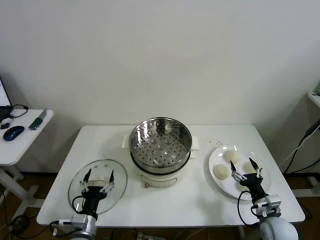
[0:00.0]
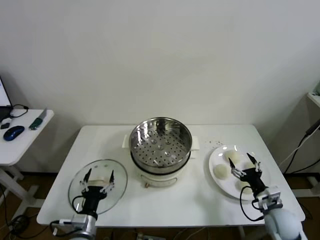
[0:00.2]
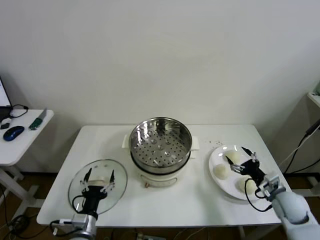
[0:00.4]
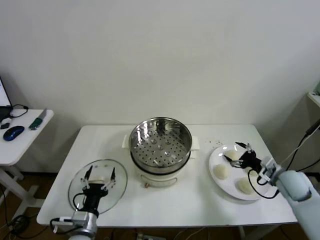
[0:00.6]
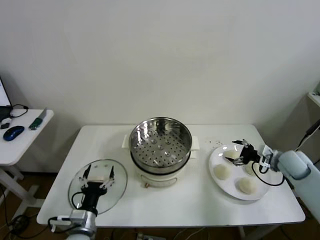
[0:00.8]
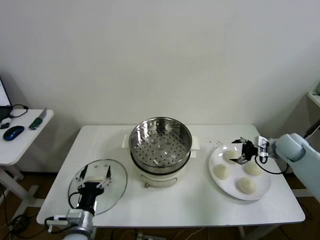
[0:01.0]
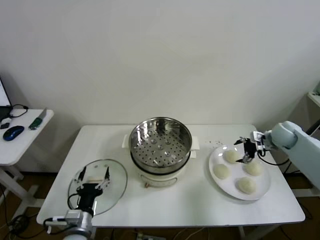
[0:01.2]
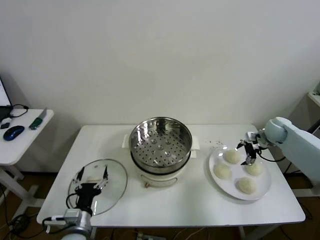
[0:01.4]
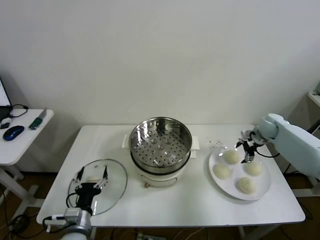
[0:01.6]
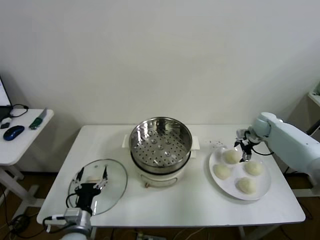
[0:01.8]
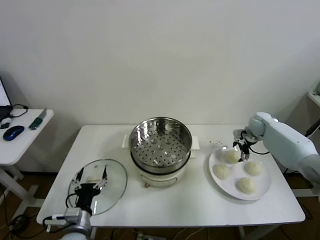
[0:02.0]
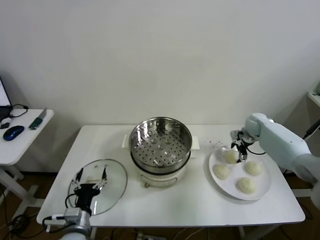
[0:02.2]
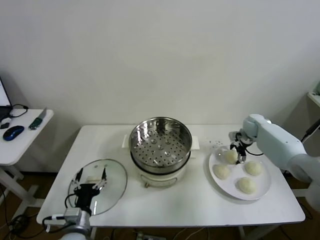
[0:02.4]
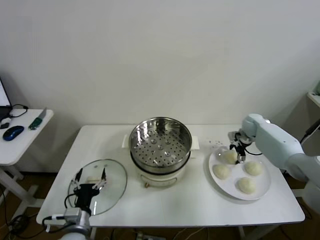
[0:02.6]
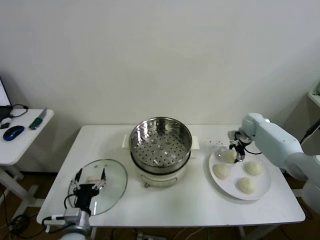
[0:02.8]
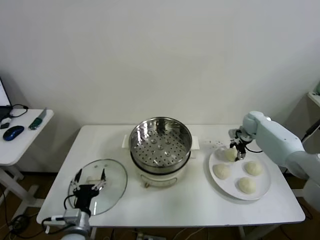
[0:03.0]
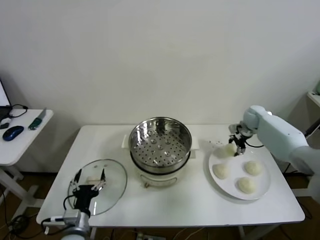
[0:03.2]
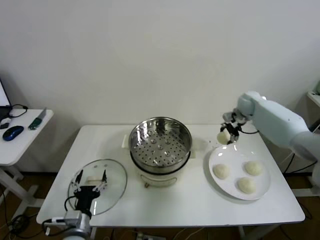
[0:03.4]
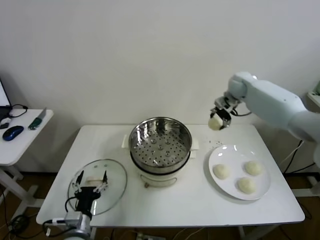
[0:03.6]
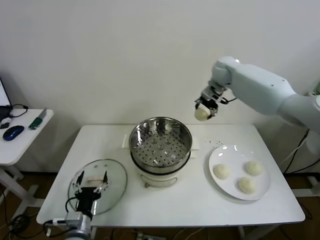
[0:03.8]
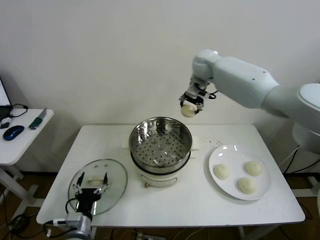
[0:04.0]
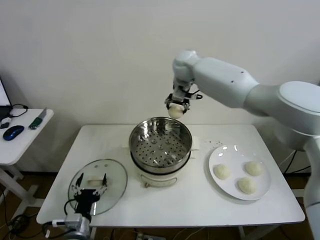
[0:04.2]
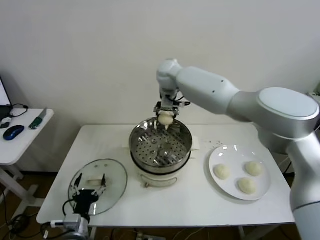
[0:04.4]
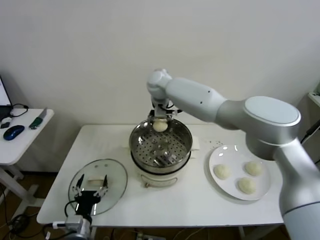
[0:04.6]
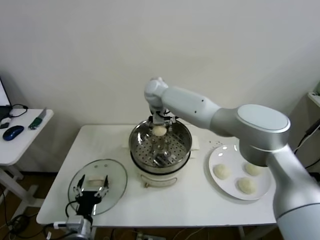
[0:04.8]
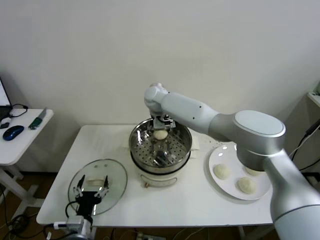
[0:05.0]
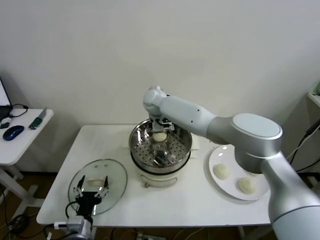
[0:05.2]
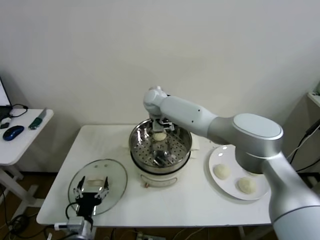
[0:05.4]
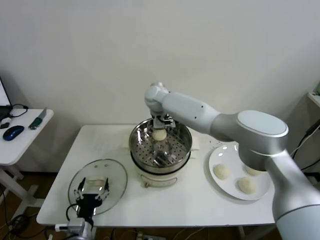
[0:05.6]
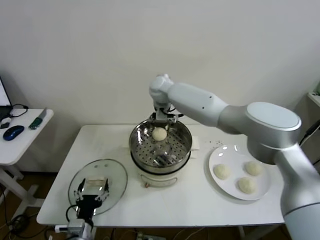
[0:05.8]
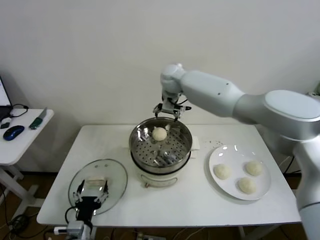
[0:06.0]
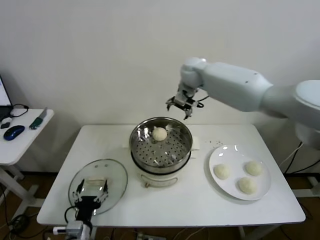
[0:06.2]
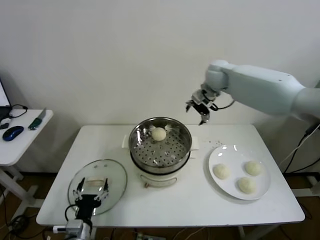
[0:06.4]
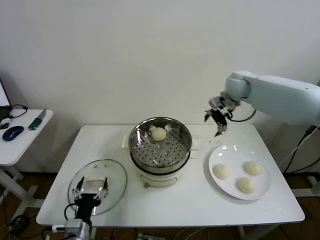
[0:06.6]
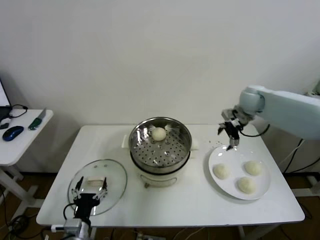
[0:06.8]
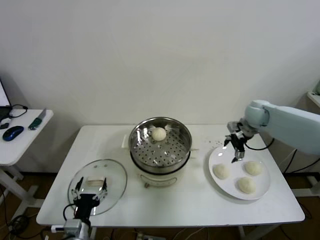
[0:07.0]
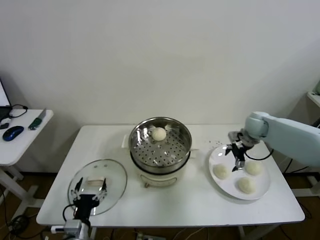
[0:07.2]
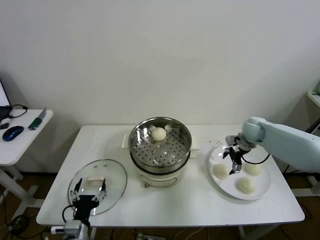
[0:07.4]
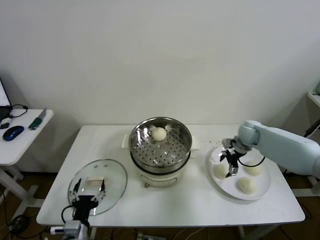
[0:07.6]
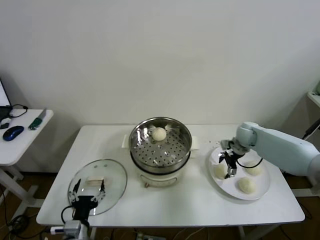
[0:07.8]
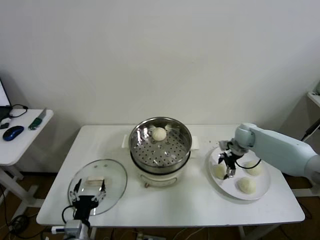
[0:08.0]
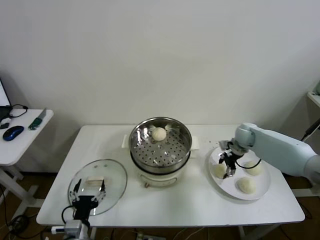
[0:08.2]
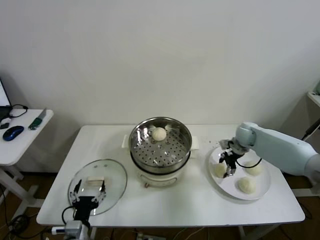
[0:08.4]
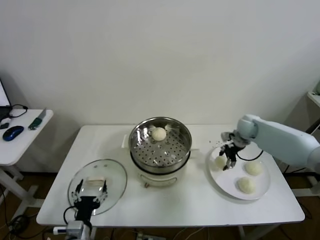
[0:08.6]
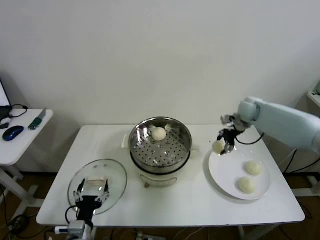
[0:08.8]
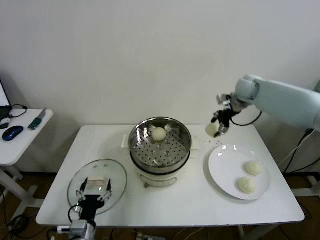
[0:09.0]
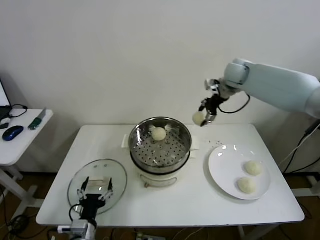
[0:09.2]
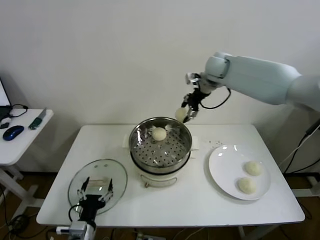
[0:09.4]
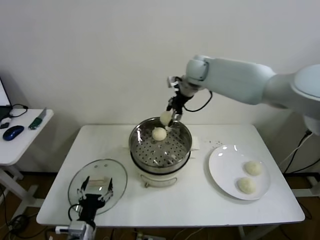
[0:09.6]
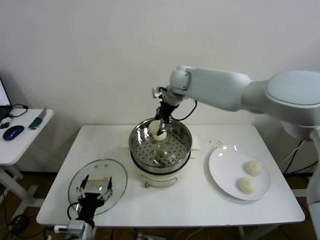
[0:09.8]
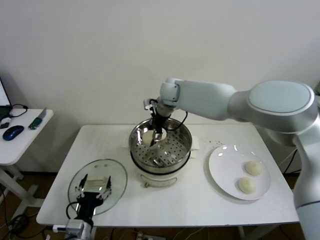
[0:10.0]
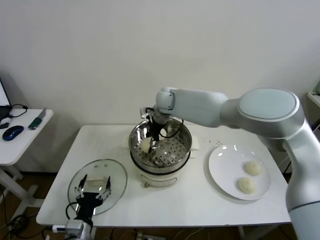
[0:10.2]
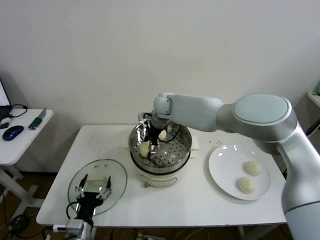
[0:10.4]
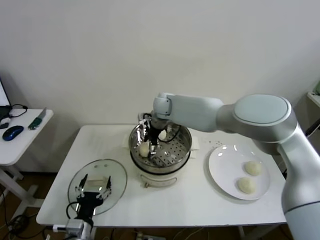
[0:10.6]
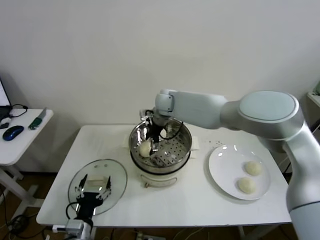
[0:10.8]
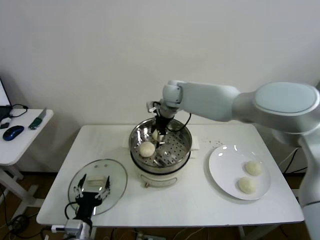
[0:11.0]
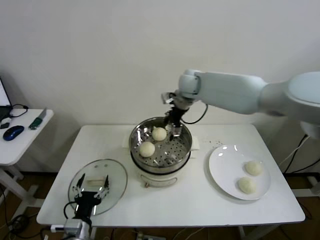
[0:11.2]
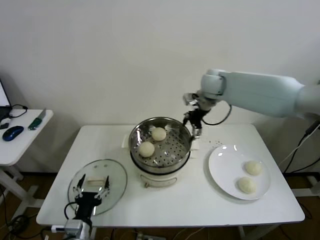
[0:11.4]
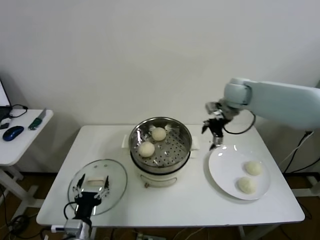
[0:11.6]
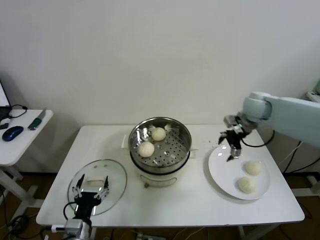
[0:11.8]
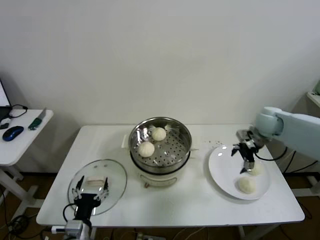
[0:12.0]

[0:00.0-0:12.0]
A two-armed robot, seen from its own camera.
Step, 0:00.0 to 0:02.6: Grasp the baozi in the plate with right gripper.
Step, 0:02.8 to 0:05.2: Place the baozi on the steamer with right gripper.
Step, 0:05.4 to 0:08.0: Grasp the baozi in the plate with right gripper.
Step, 0:08.2 to 0:10.6: Place the baozi on the steamer with right gripper.
0:01.6 to 0:03.0: The right gripper moves roughly 5 cm, and closes its fingers.
0:03.0 to 0:04.4: The right gripper goes some 40 cm to the left and upward.
0:04.4 to 0:06.0: The right gripper reaches roughly 10 cm downward, then returns, and opens.
0:06.0 to 0:07.6: The right gripper goes about 35 cm to the right and downward.
0:07.6 to 0:09.0: The right gripper travels upward and forward by roughly 15 cm, and closes its fingers.
0:09.0 to 0:10.4: The right gripper travels to the left by some 30 cm.
0:10.4 to 0:12.0: The right gripper heads to the right, covering about 35 cm, and opens.

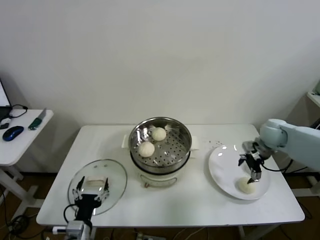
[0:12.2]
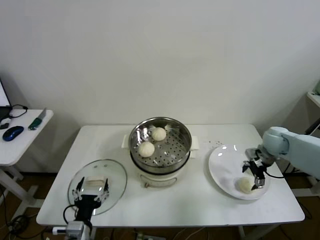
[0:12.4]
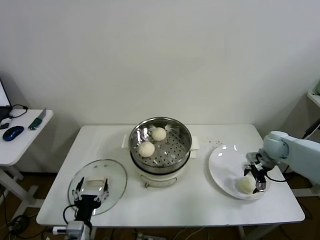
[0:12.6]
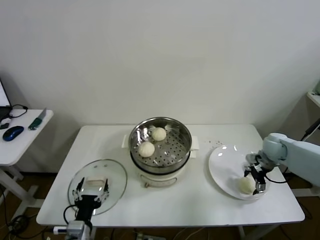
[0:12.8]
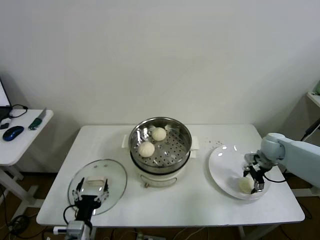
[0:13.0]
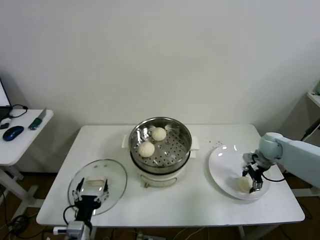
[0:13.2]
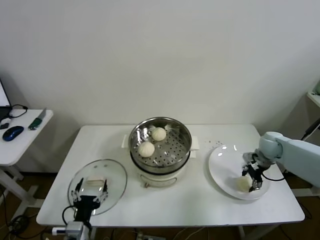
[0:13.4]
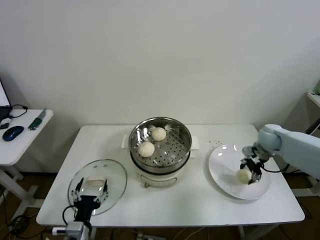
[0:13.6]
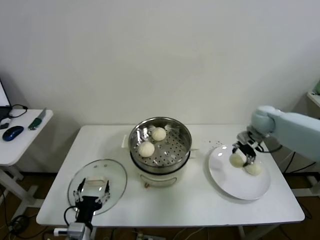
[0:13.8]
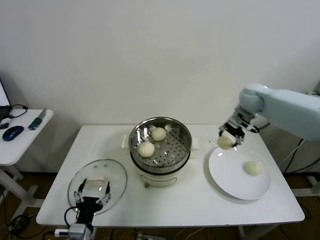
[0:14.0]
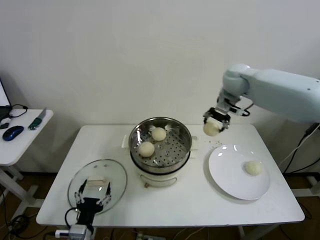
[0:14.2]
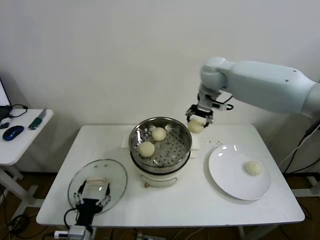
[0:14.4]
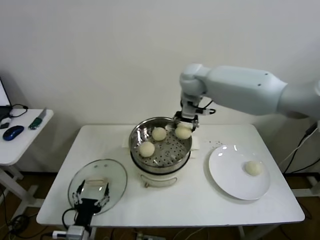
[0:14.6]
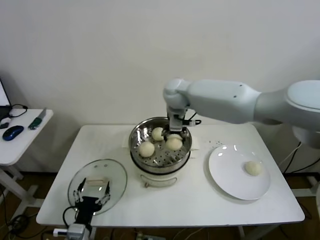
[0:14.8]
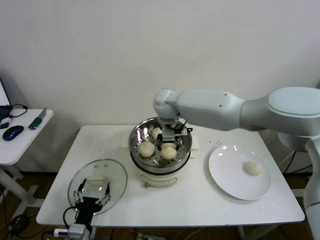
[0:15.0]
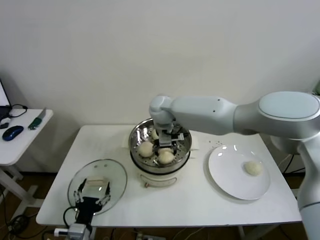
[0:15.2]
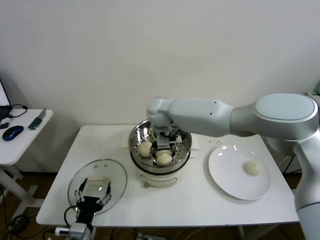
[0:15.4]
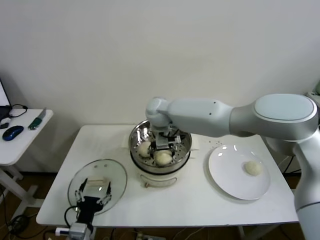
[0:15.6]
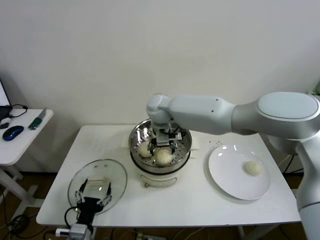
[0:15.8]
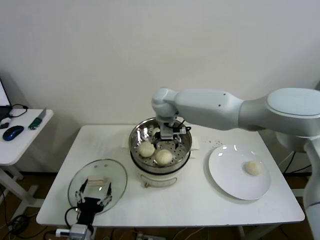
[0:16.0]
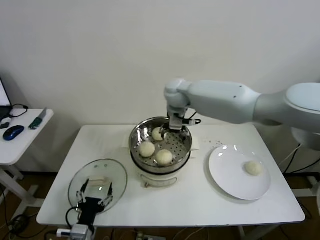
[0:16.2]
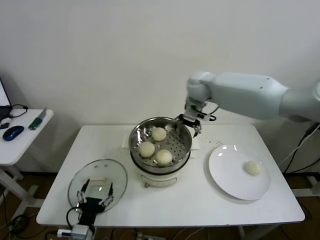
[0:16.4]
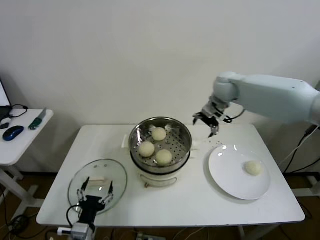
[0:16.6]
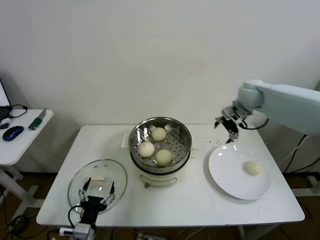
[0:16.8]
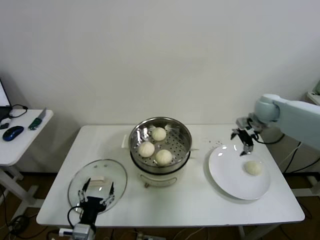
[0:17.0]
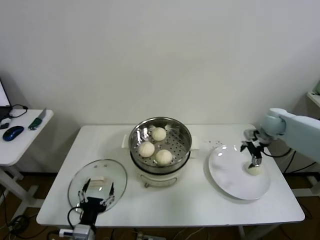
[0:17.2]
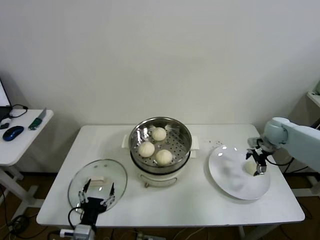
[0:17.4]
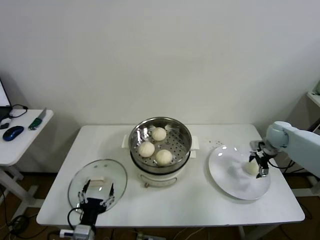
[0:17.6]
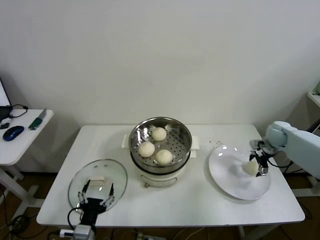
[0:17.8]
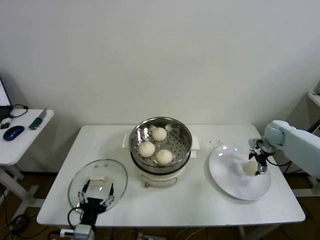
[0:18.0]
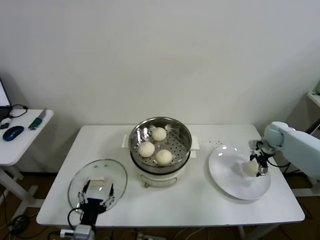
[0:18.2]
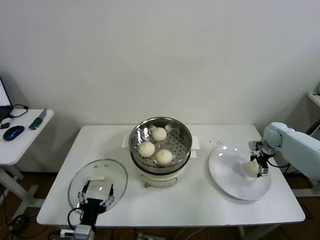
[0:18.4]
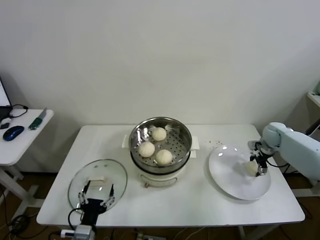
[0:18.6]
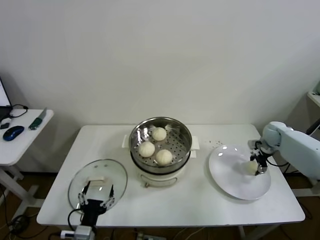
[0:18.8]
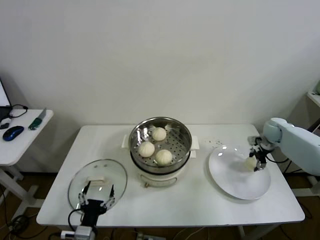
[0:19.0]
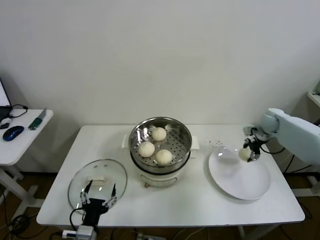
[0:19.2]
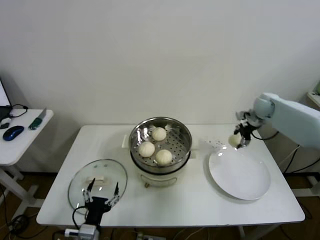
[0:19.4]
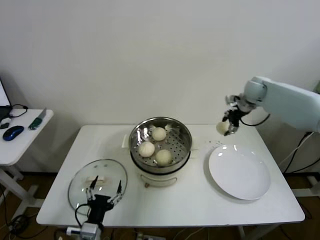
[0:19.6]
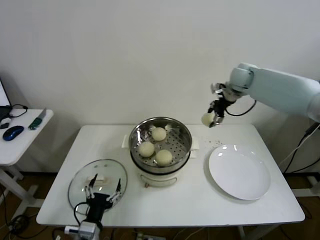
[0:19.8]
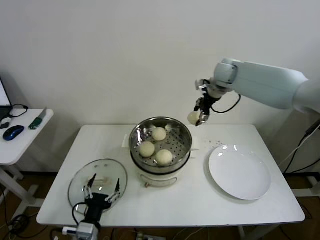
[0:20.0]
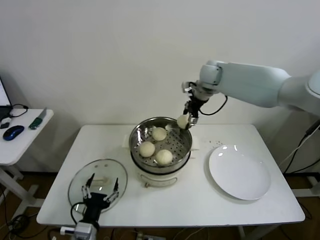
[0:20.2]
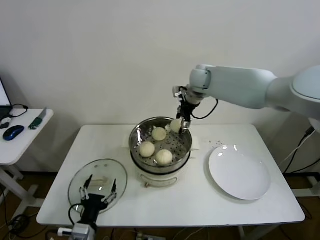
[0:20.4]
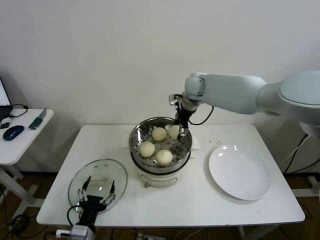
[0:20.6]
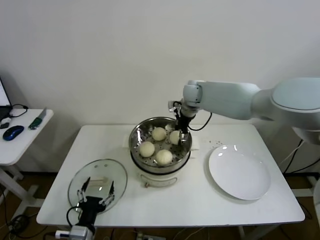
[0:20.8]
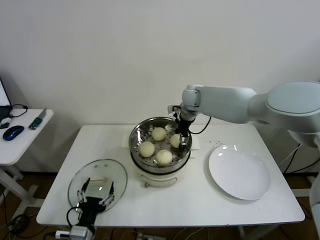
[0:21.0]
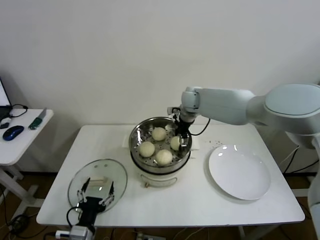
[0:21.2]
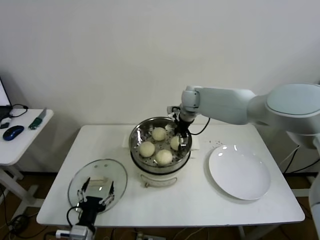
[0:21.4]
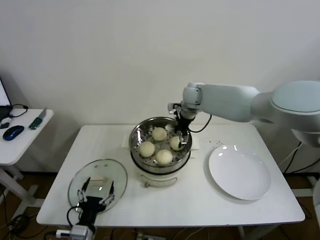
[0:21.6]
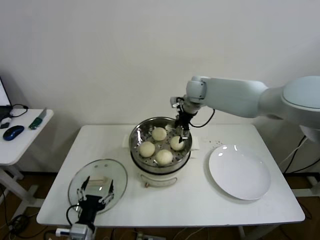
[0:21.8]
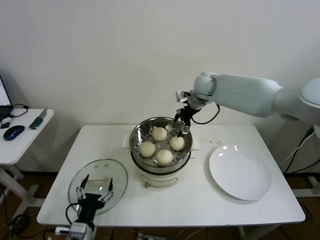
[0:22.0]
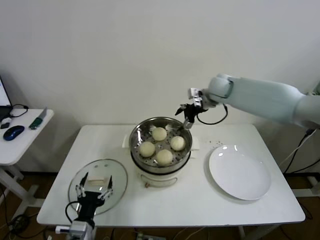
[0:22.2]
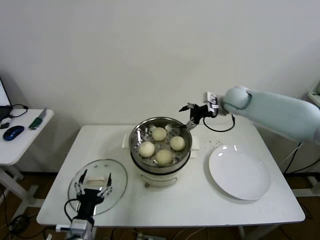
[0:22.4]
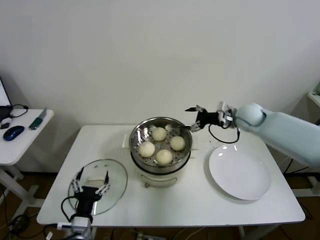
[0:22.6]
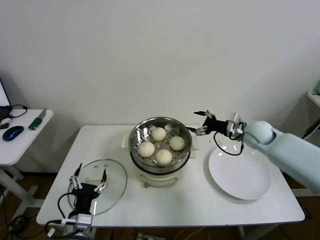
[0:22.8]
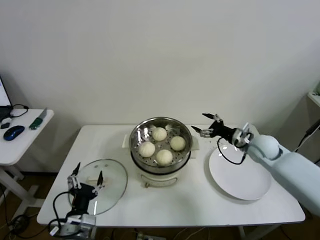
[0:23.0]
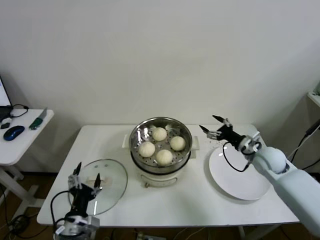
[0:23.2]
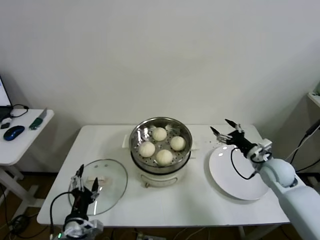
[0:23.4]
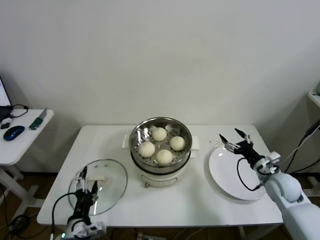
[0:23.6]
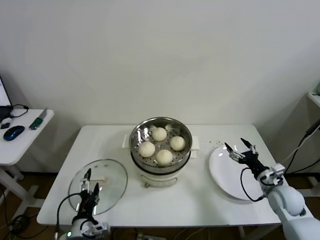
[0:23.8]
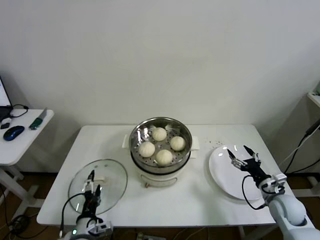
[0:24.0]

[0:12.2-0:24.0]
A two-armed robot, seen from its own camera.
Step, 0:13.2 to 0:15.4: Place the baozi on the steamer with right gripper.
Step, 0:15.6 to 0:18.6: Grasp the baozi in the plate with right gripper.
Step, 0:18.8 to 0:21.2: Place the baozi on the steamer with right gripper.
0:12.2 to 0:13.6: The right gripper goes about 5 cm downward, and closes its fingers.
0:13.6 to 0:15.2: The right gripper is displaced to the left by some 40 cm.
0:15.2 to 0:16.6: The right gripper moves to the right, about 20 cm, and opens.
0:16.6 to 0:18.2: The right gripper is displaced to the right and downward by approximately 30 cm.
0:18.2 to 0:19.6: The right gripper shifts approximately 20 cm upward, to the left and forward, and closes.
0:19.6 to 0:21.0: The right gripper goes about 25 cm to the left.
0:21.0 to 0:22.6: The right gripper heads to the right, covering approximately 20 cm, and opens its fingers.
0:22.6 to 0:24.0: The right gripper goes approximately 35 cm backward, downward and to the right.
